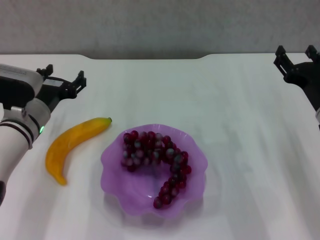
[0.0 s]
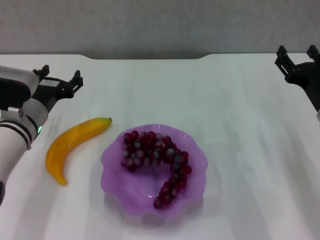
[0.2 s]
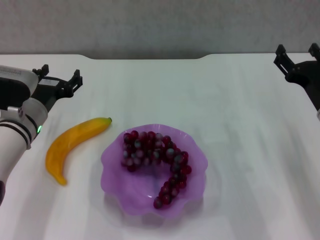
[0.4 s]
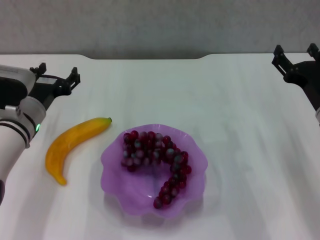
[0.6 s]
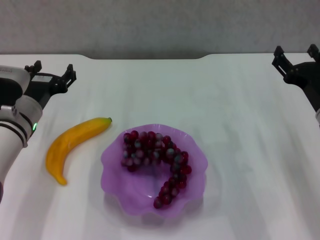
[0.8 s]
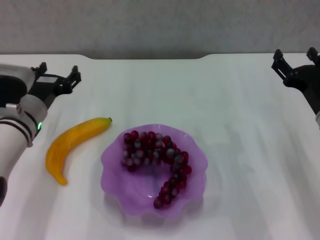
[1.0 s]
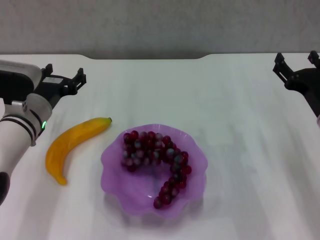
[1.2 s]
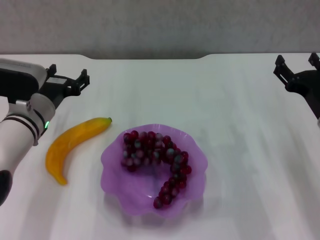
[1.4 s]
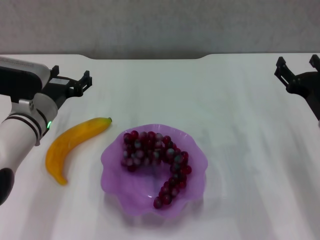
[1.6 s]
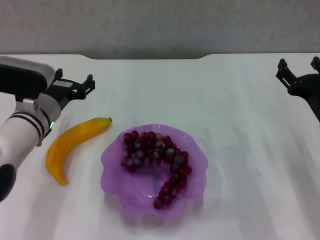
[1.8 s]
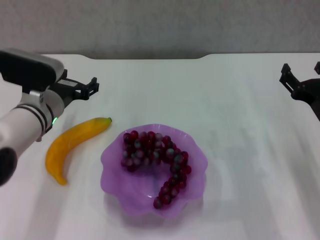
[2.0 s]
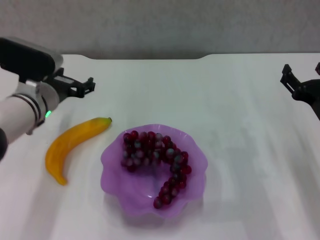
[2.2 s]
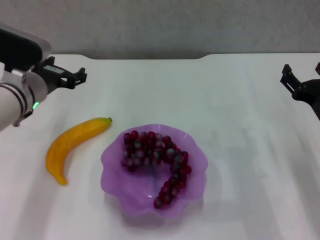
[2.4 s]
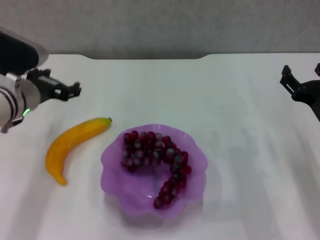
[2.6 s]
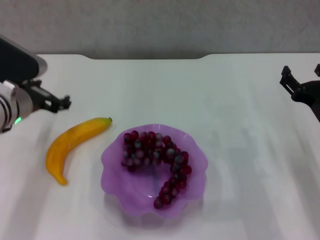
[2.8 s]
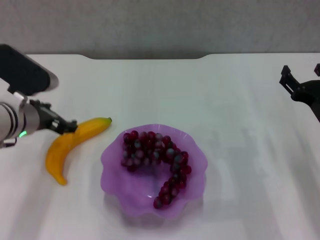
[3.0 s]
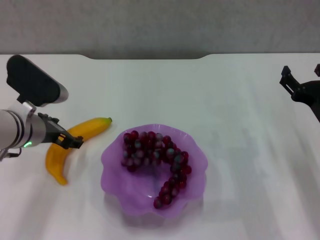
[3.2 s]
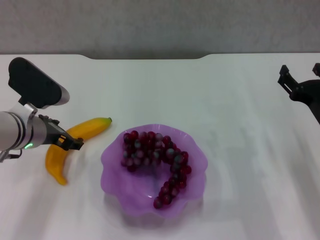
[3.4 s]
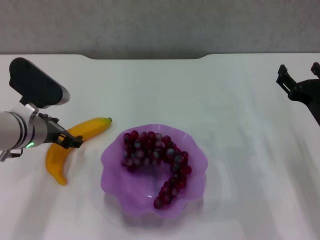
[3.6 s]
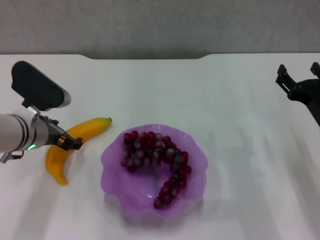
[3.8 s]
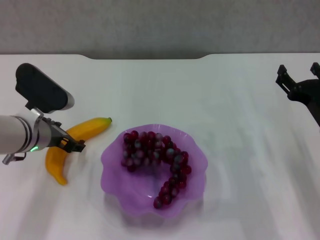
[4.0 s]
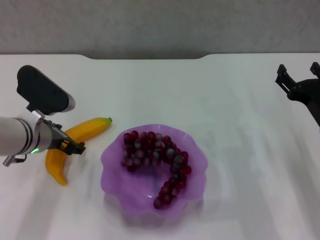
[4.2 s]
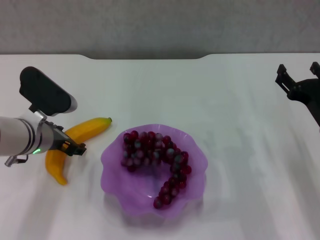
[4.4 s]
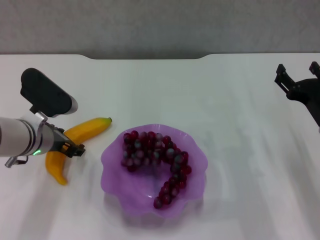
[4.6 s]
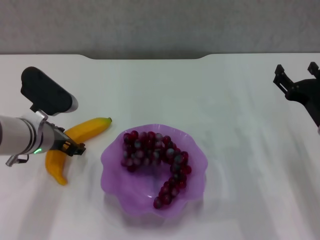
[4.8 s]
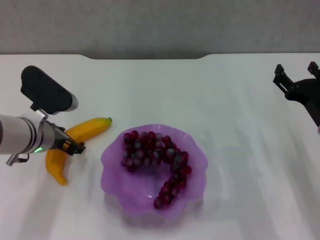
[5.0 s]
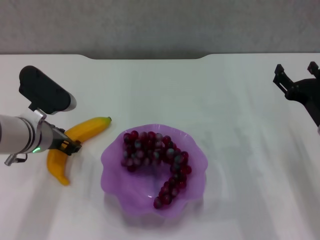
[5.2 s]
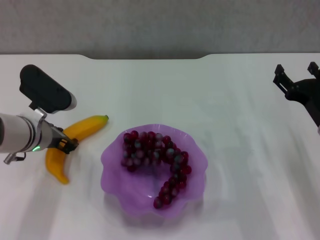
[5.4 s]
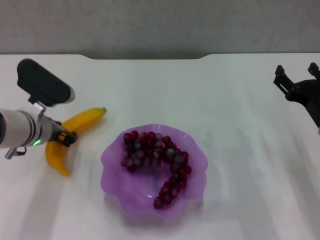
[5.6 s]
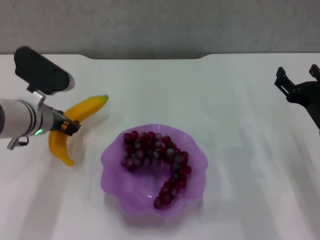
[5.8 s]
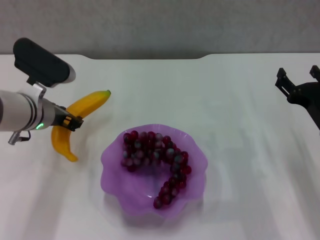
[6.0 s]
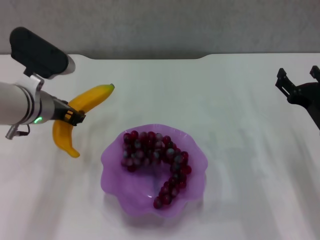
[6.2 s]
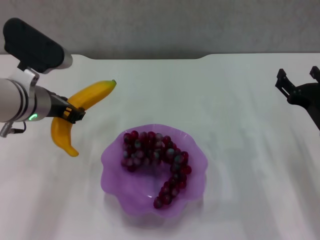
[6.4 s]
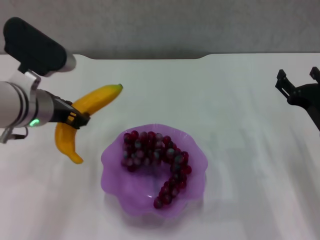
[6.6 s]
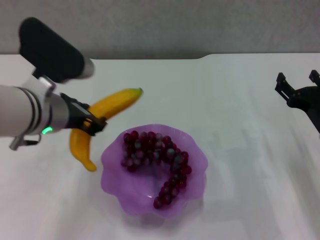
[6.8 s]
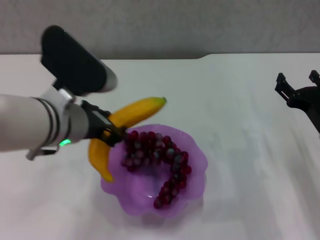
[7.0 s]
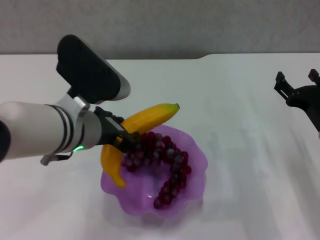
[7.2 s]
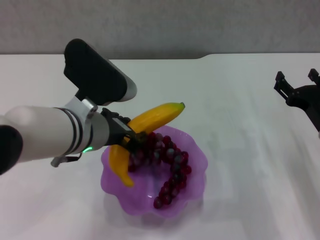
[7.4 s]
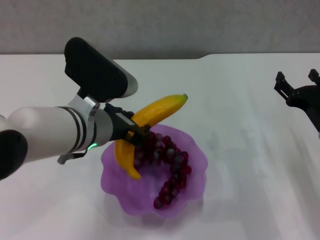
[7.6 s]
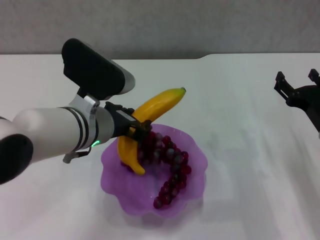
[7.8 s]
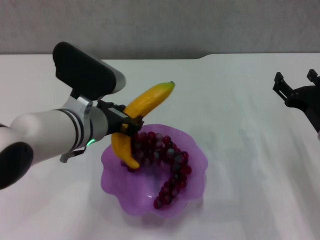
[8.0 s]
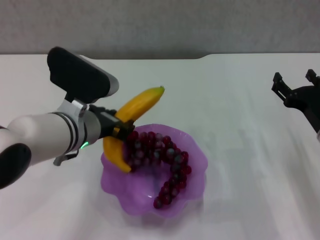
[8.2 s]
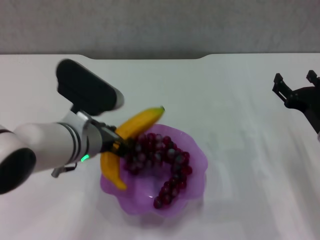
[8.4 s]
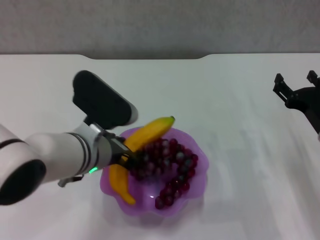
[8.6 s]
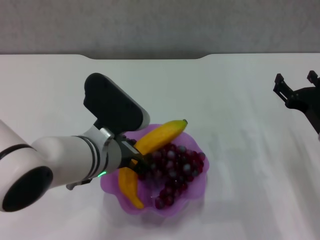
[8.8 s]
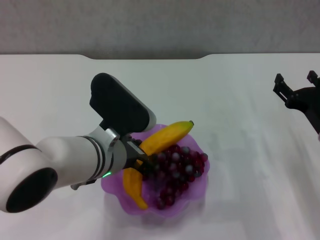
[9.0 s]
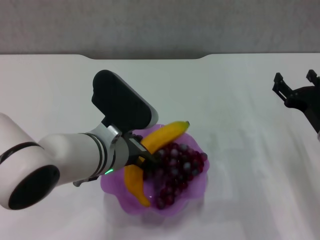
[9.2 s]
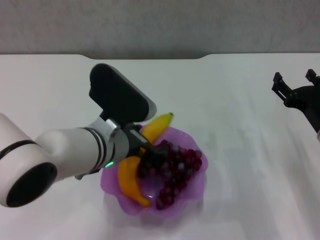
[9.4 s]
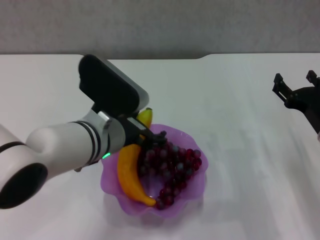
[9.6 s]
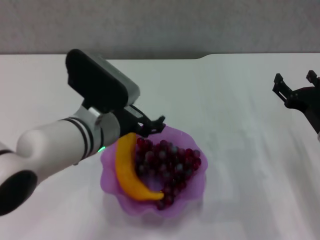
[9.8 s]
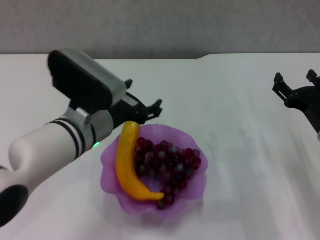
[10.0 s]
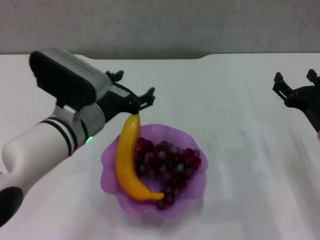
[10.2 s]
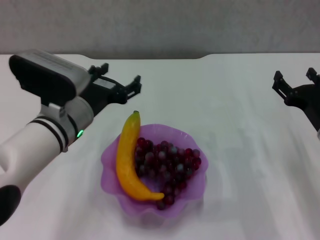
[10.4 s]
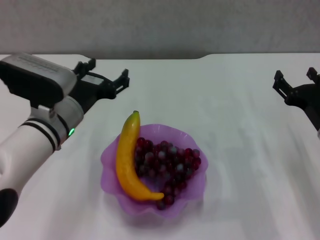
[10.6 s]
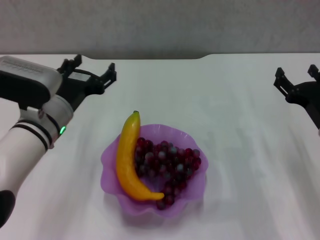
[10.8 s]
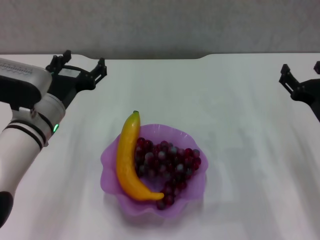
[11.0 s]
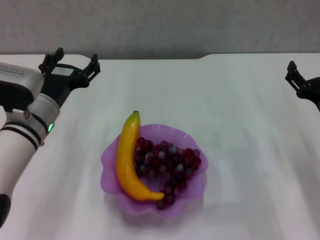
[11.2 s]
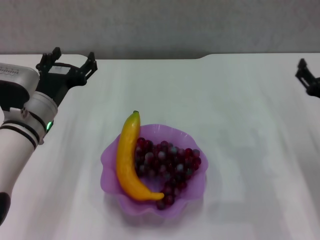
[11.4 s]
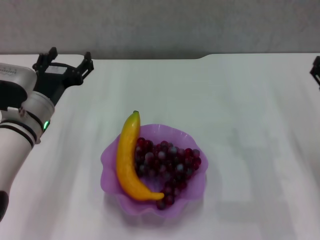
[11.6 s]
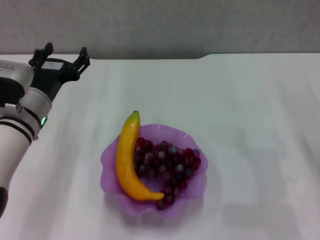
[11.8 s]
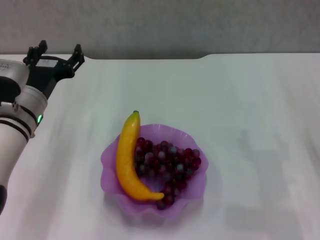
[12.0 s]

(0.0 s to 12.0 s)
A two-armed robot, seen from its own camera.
Step, 0.0 s - 5.2 s: Grasp the banana with left gripper.
Step, 5.4 s - 9.6 s: Place the banana in the purple plate with left gripper.
0.0 s - 1.6 s: The grippers move only a little.
3.0 s - 4.4 s: The grippers stay close to where they were, moving slightly.
4.4 s - 6.0 s: The left gripper closes up.
6.0 s - 7.6 s: The left gripper heads to the right and backward, covering about 10 cm.
9.0 s - 10.4 s: The left gripper is displaced to the left by some 5 cm, and opens its fingers.
10.4 s - 12.0 s: The left gripper heads to the left, covering about 5 cm, while the right gripper changes place by roughly 5 cm.
